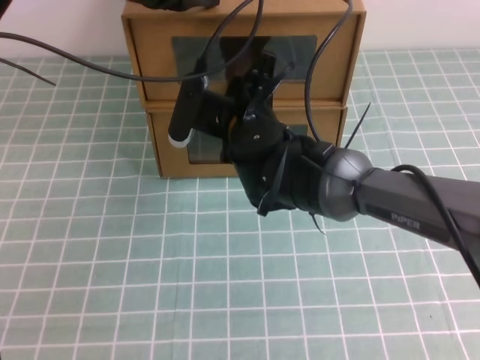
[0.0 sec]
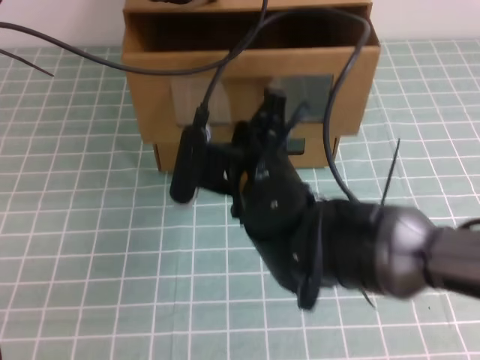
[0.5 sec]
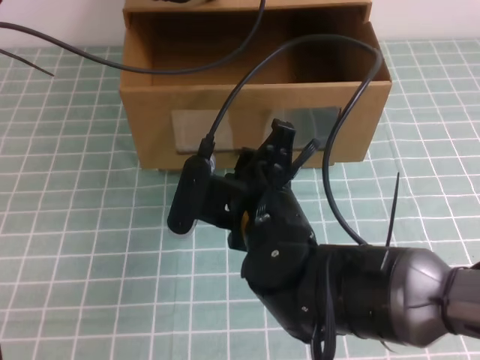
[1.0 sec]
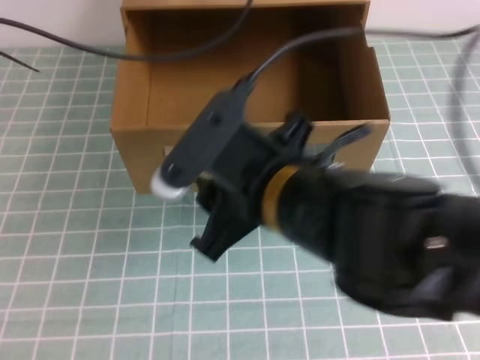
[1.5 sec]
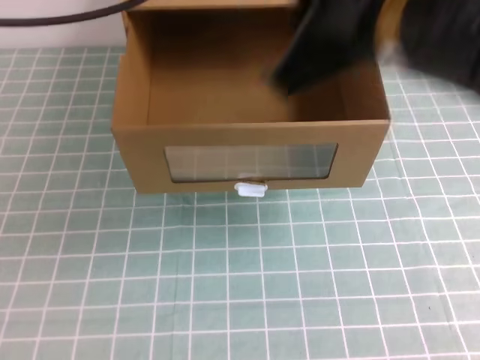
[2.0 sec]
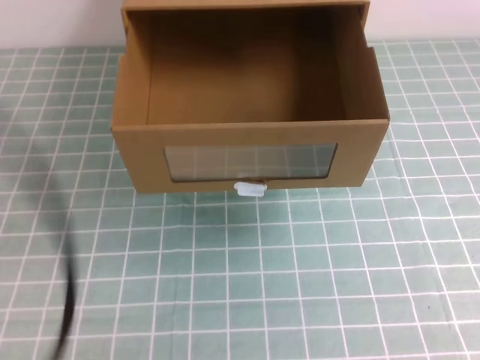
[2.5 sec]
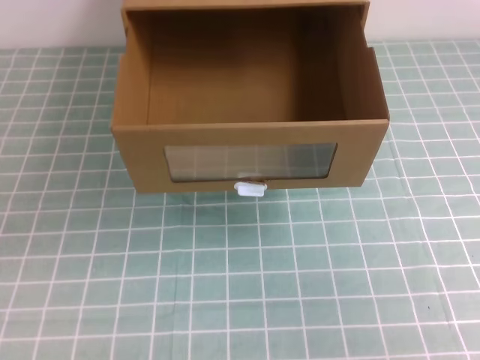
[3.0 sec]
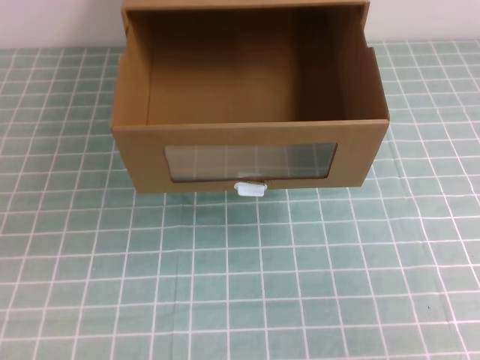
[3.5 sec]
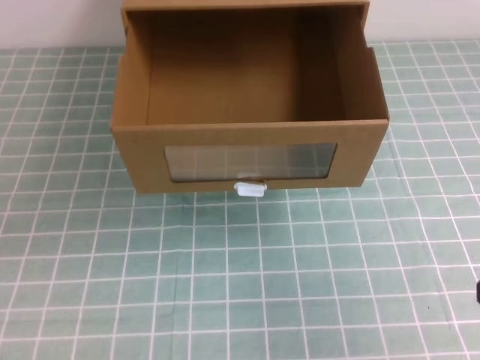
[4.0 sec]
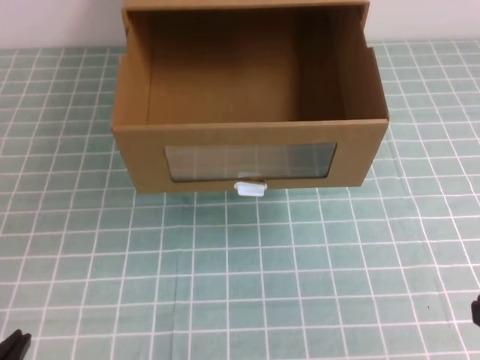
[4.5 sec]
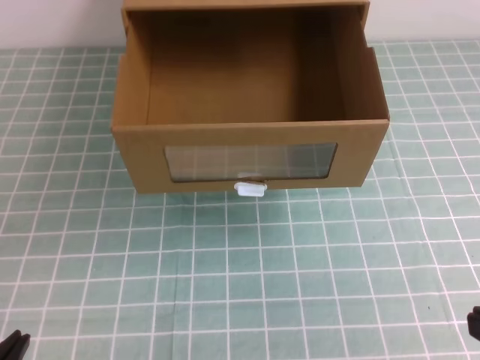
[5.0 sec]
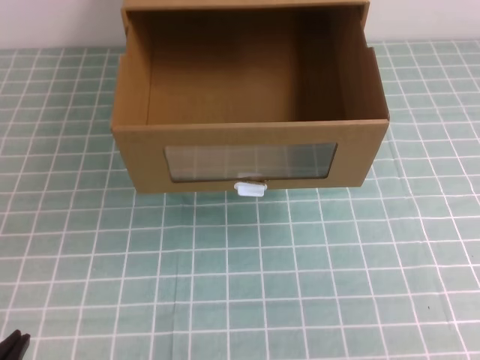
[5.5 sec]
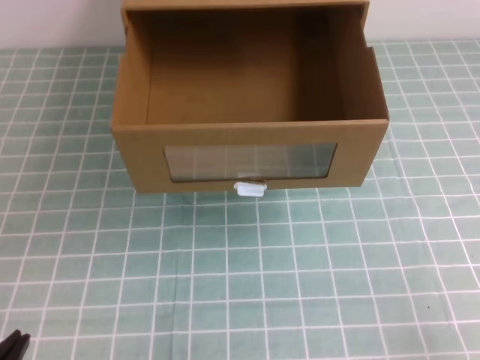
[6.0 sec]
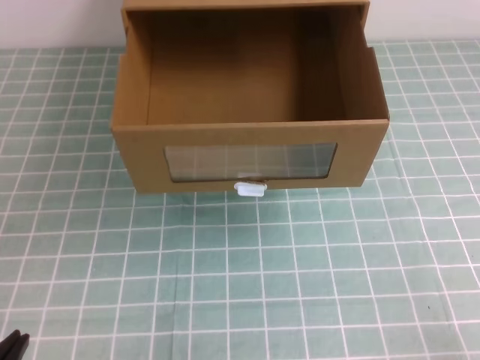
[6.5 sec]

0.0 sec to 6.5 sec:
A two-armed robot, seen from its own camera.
Task of the whole recording: open the shoebox on the cyan tablecloth.
Step, 0.0 sec to 6.5 sec: Open the shoe box.
0.0 sec to 2.0 sec: The right gripper moves upward, backward and to the right, roughly 25 cm, and opens and closes again, while the left gripper heads backward and upward, covering approximately 20 cm.
2.0 sec to 4.5 sec: The left gripper shifts roughly 40 cm downward and backward. Meanwhile the right gripper travels to the right, downward and backward by roughly 25 cm, and closes.

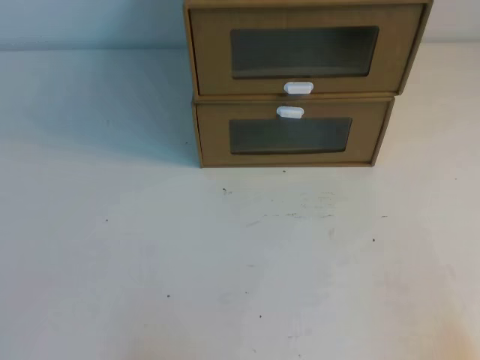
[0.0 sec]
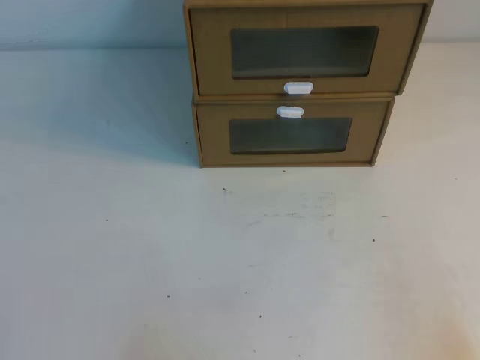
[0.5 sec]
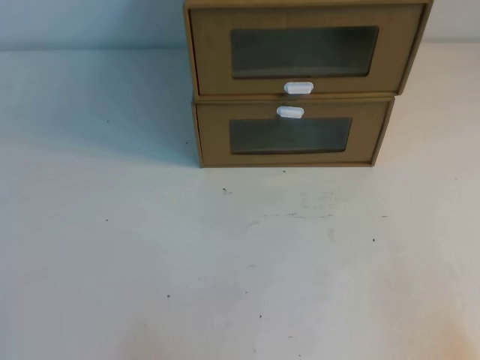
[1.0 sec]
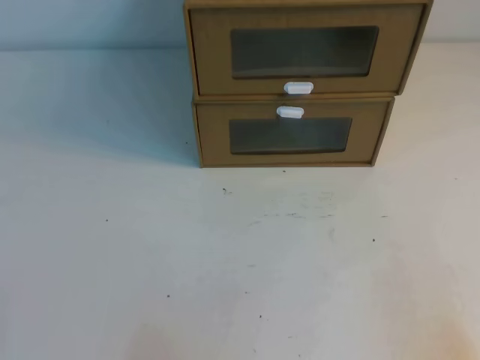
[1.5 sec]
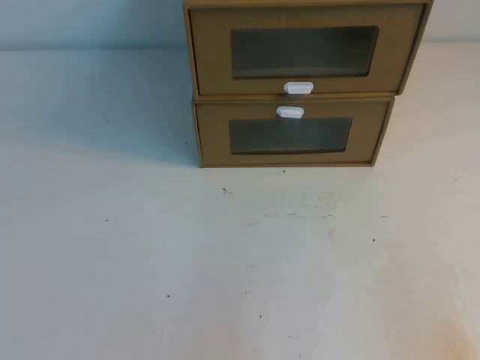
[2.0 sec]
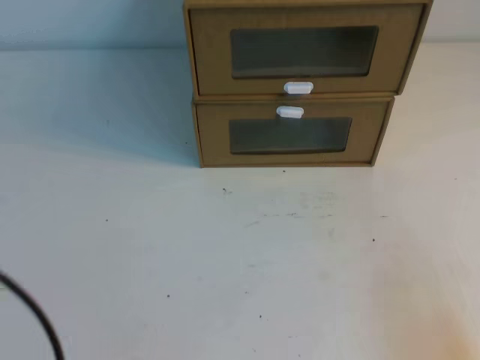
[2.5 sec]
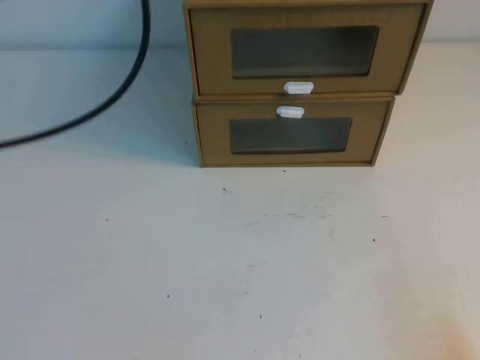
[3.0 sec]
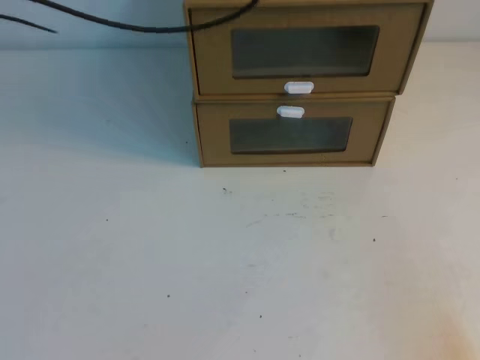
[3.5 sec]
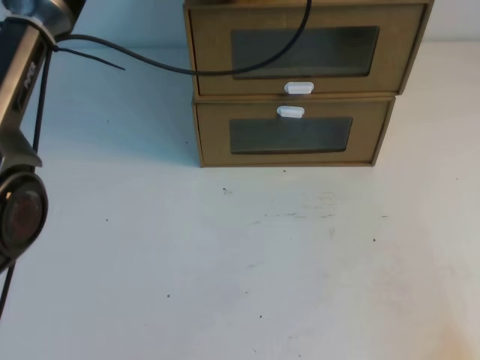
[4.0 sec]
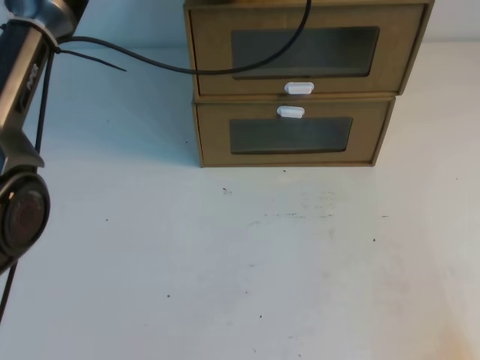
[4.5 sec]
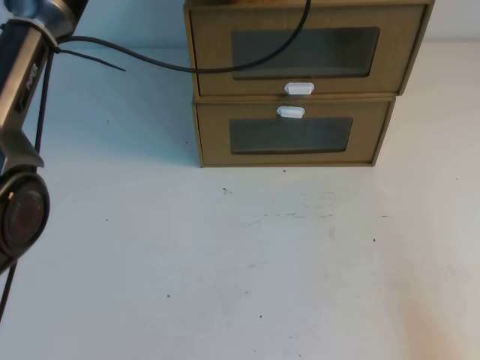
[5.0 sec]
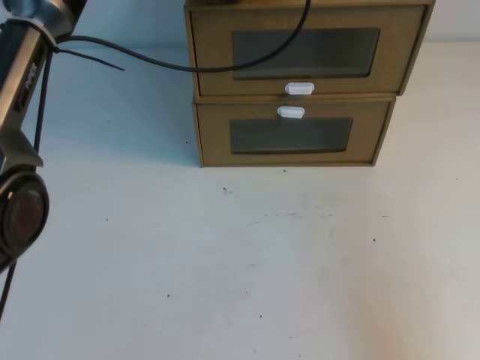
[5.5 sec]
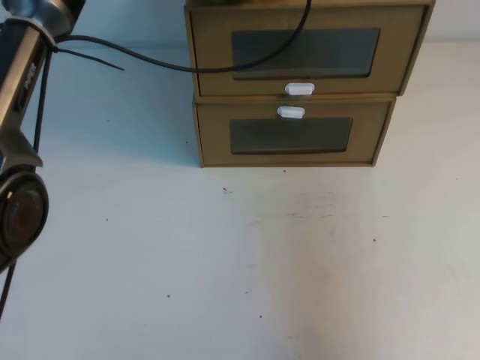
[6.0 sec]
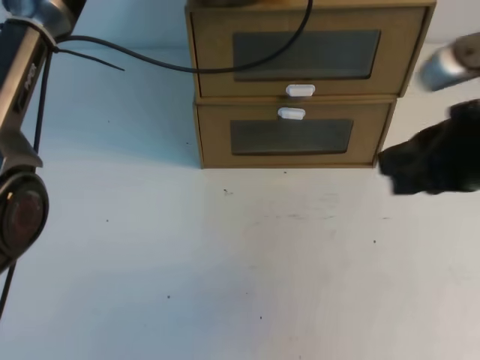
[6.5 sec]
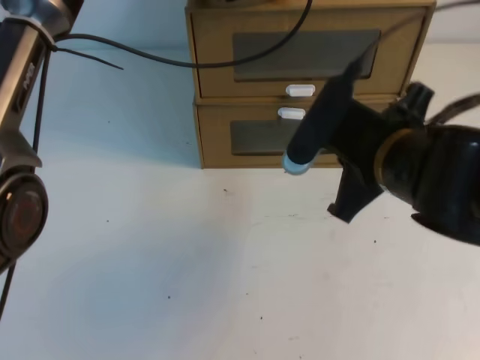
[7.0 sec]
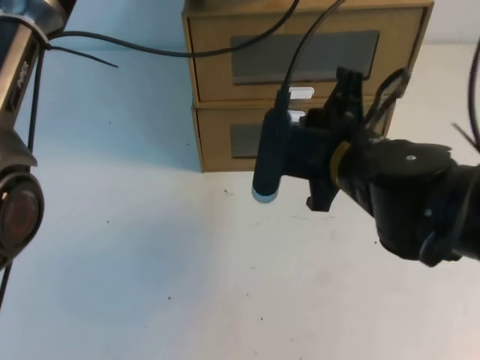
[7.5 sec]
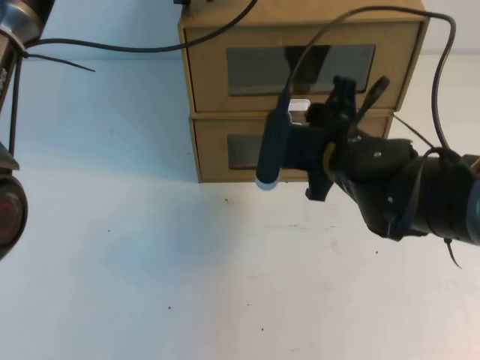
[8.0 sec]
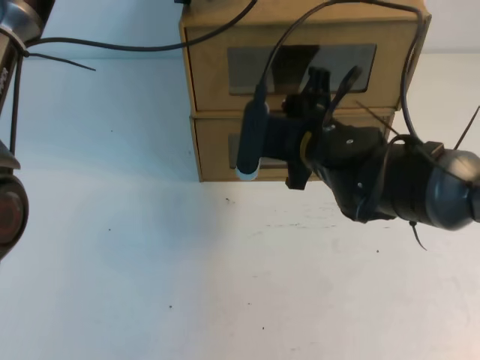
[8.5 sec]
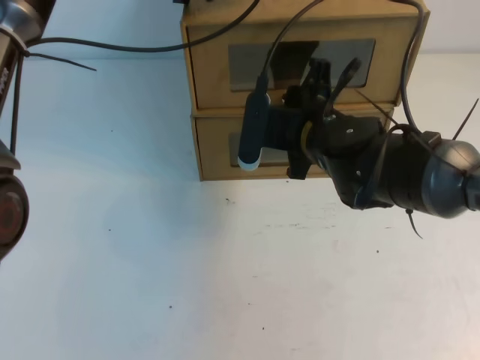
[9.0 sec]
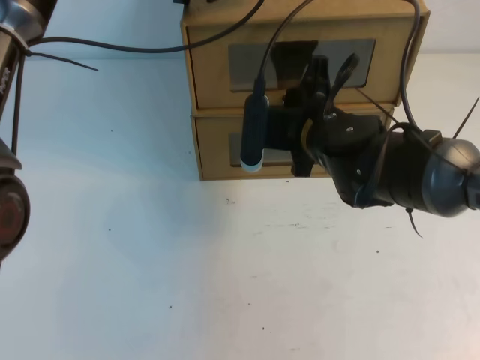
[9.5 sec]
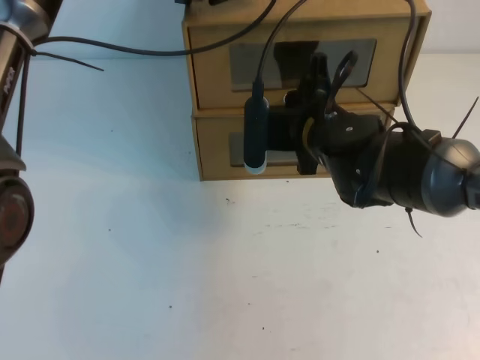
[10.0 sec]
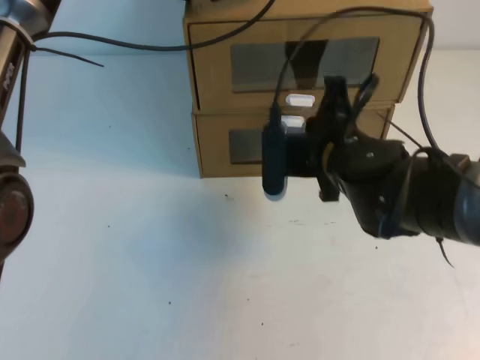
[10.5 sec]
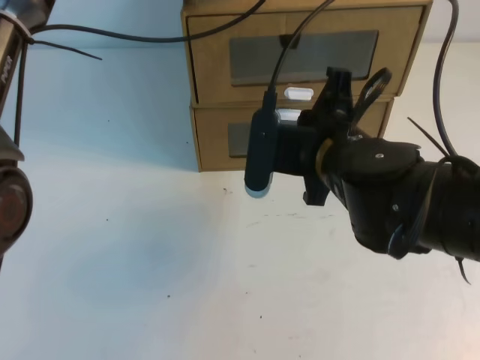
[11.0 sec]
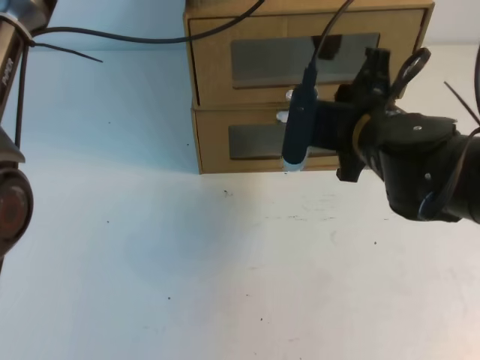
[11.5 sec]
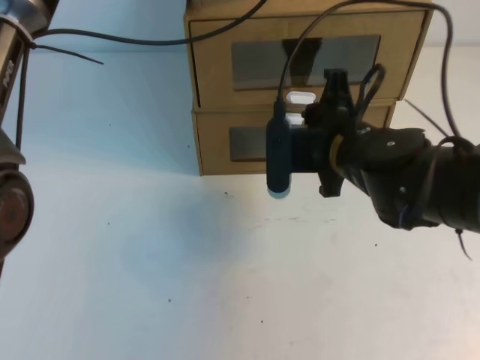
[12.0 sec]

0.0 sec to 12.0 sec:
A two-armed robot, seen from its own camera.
Task of the whole recording: open the shoebox on the table.
2.0 sec to 4.0 sec: The left gripper goes approximately 50 cm forward, upward and to the right.
4.0 sec to 6.0 sec: The right gripper travels upward by about 15 cm.
6.0 sec to 8.0 sec: The right gripper goes some 30 cm forward and to the left, and opens up.
8.0 sec to 10.0 sec: The right gripper goes about 5 cm forward, and closes its fingers.
10.0 sec to 12.0 sec: The right gripper shifts by some 5 cm, and opens its fingers.

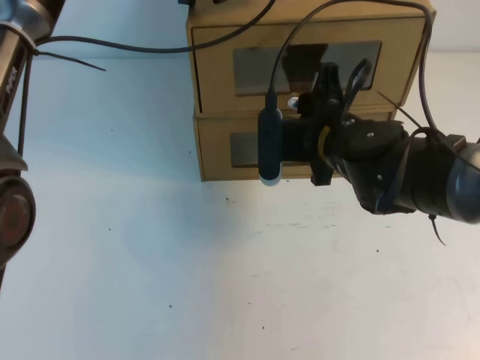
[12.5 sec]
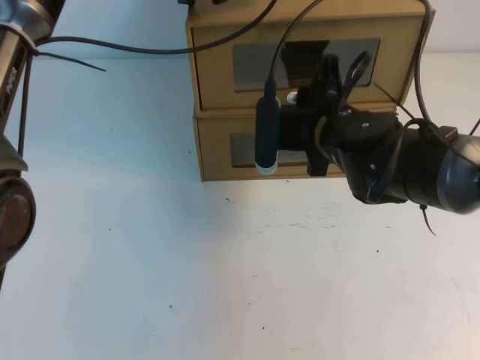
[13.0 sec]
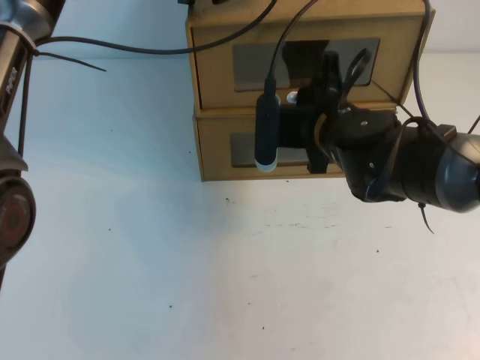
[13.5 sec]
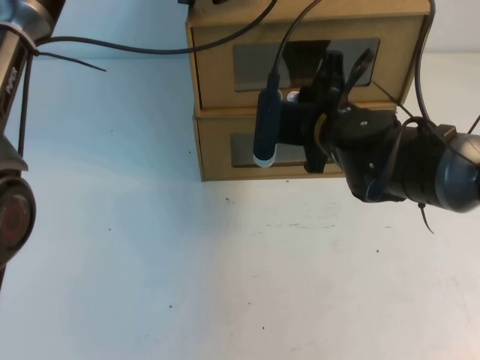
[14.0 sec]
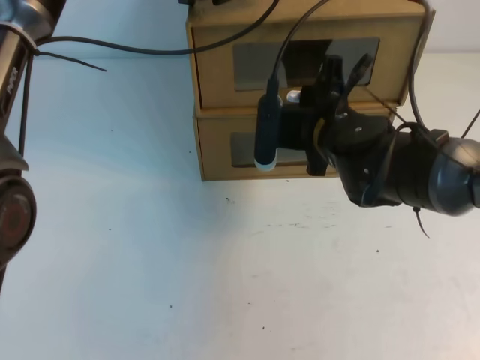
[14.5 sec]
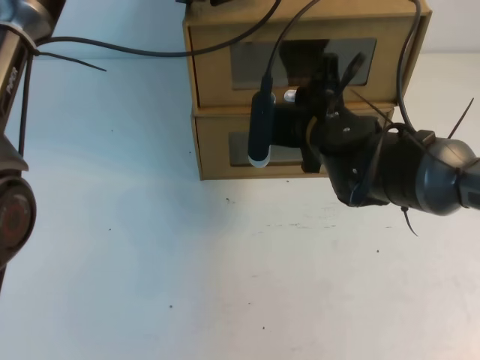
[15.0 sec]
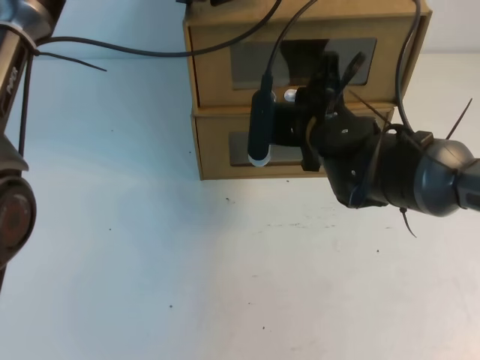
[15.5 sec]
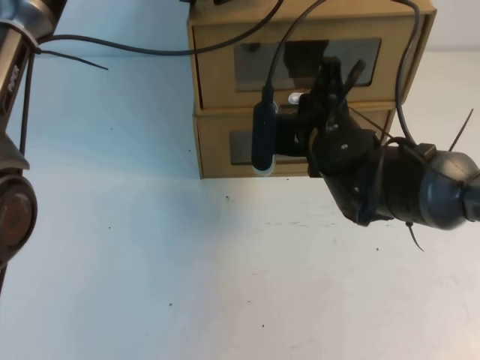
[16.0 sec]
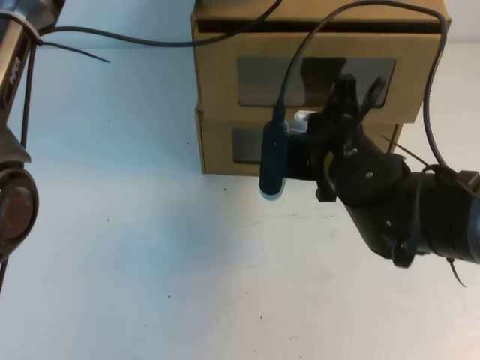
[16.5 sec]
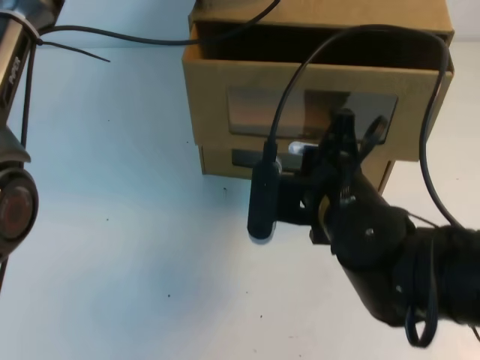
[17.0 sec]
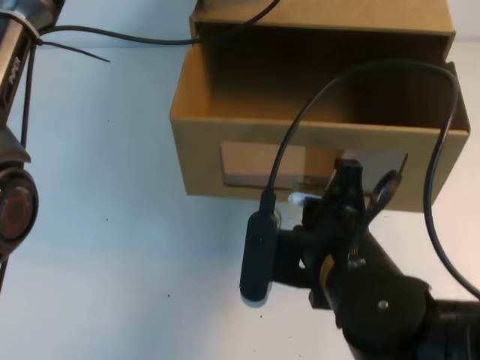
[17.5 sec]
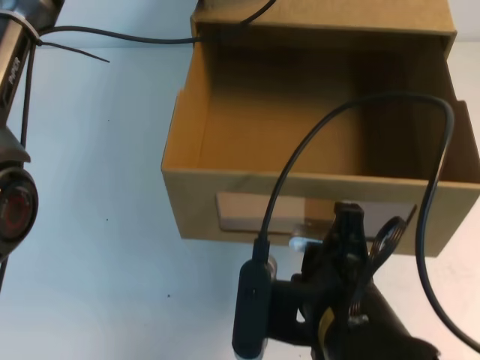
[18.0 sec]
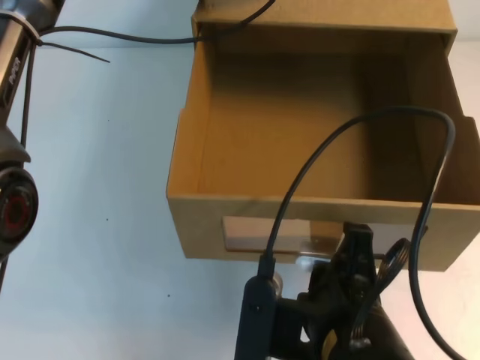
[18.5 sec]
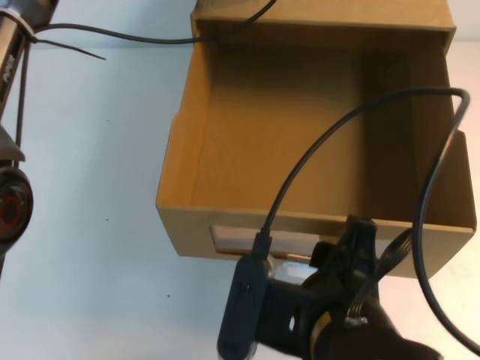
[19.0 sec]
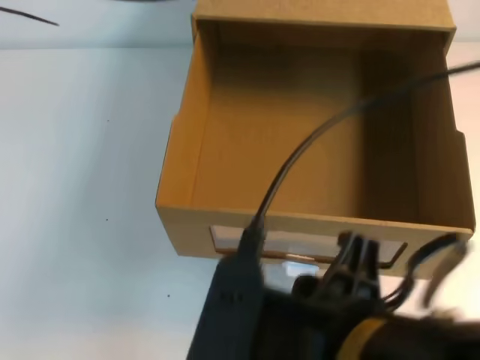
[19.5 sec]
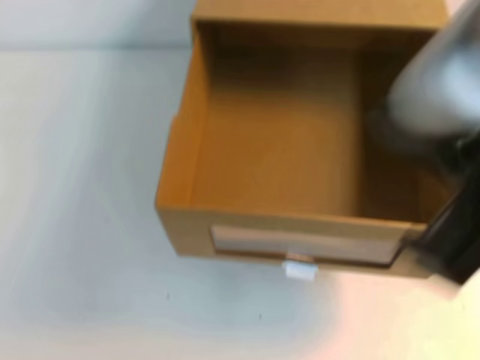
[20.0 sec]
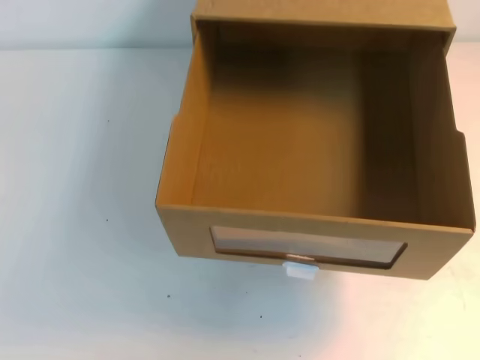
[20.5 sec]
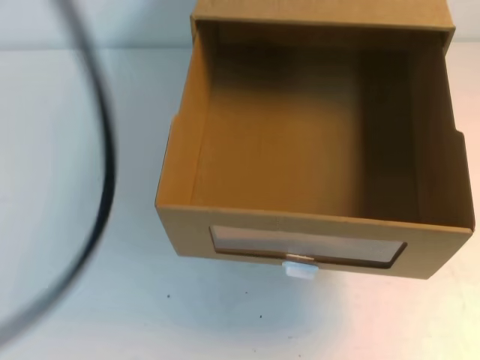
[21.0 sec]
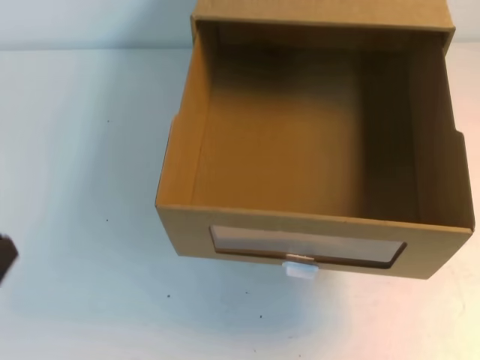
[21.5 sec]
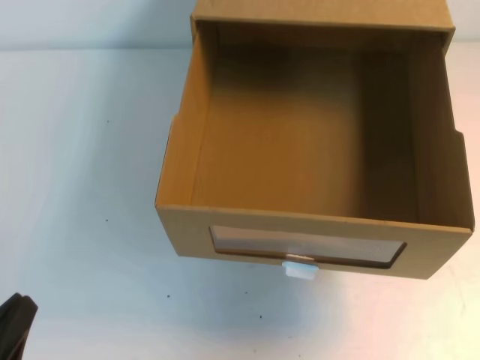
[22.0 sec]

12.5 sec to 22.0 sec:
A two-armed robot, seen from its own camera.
Task of the whole recording: open the shoebox on the table.
12.5 sec to 14.5 sec: The right gripper closes, then reopens.
14.5 sec to 16.5 sec: The right gripper closes.
16.5 sec to 18.0 sec: The right gripper heads backward, covering approximately 15 cm.
18.0 sec to 20.0 sec: Both grippers travel together upward and backward, some 20 cm. The right gripper opens, then closes once more.
20.0 sec to 22.0 sec: The left gripper goes approximately 40 cm downward, backward and to the left. The right gripper goes approximately 20 cm to the right, and closes.
